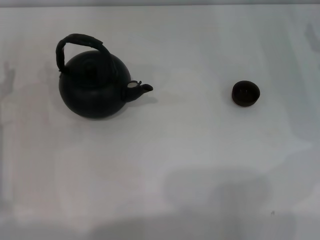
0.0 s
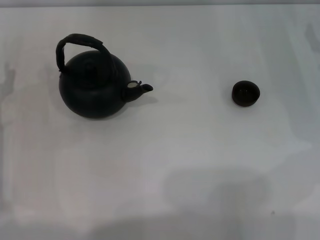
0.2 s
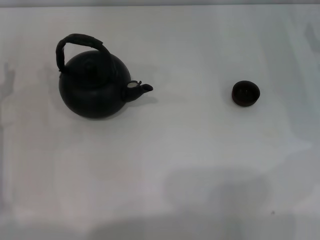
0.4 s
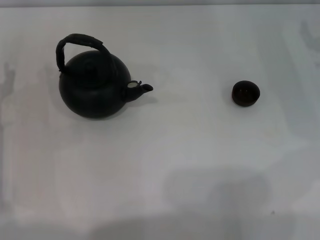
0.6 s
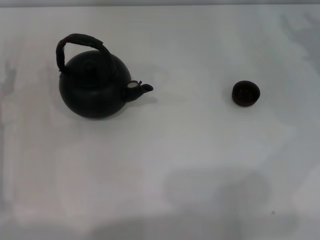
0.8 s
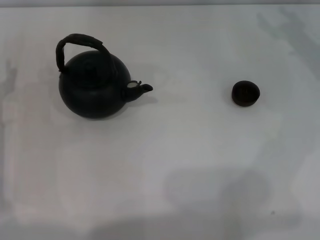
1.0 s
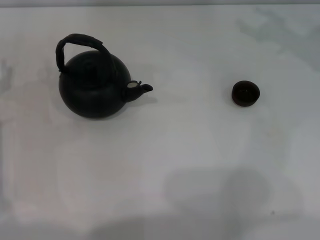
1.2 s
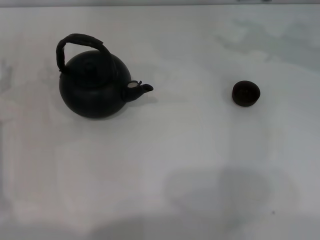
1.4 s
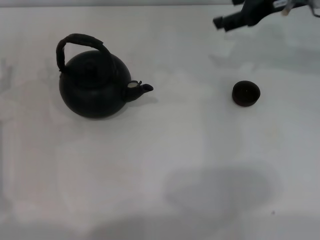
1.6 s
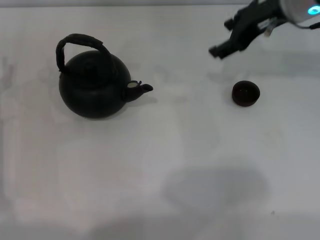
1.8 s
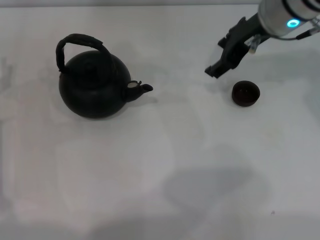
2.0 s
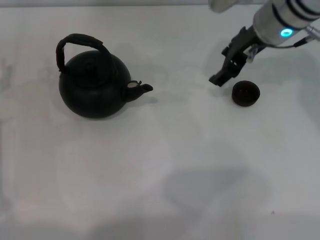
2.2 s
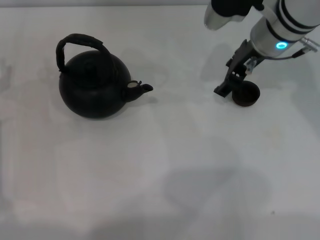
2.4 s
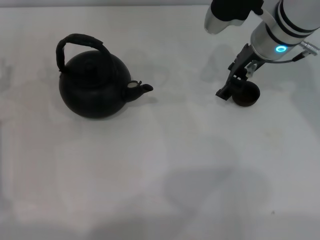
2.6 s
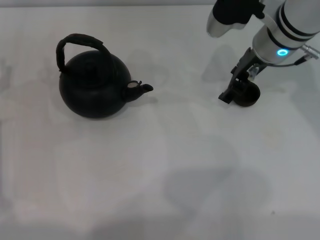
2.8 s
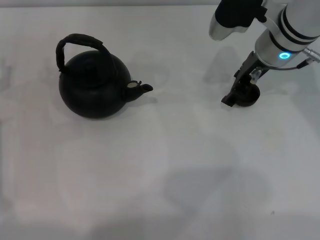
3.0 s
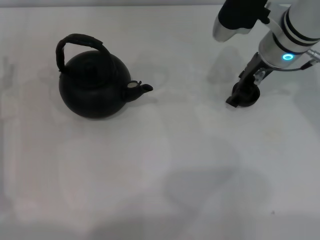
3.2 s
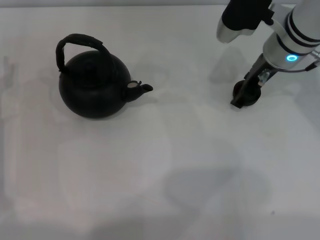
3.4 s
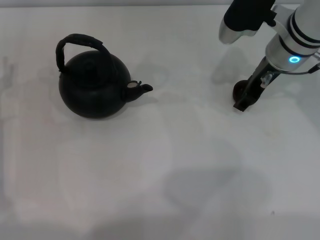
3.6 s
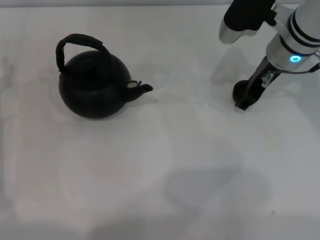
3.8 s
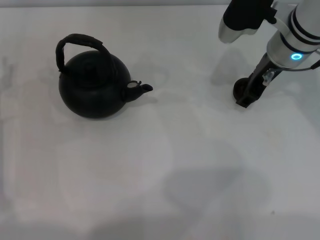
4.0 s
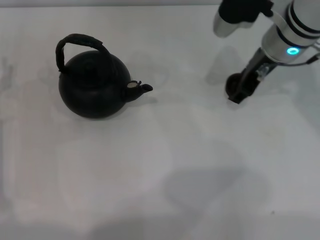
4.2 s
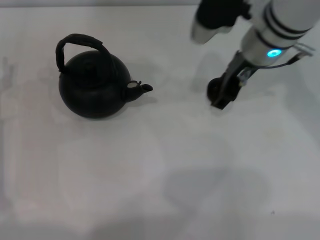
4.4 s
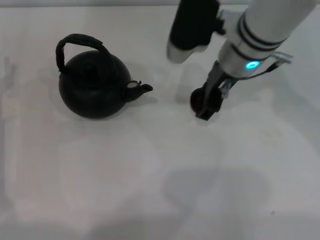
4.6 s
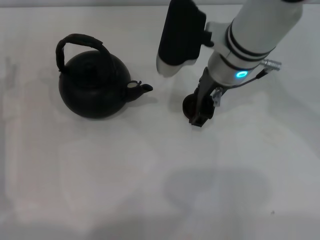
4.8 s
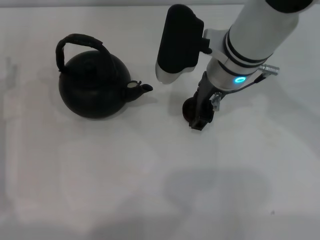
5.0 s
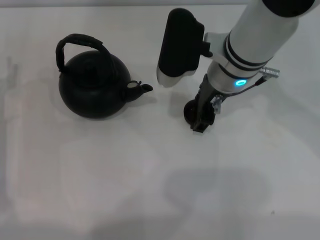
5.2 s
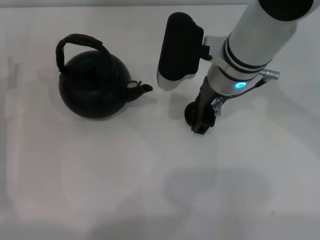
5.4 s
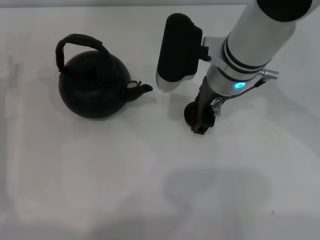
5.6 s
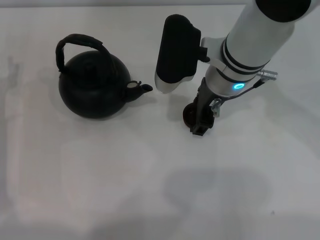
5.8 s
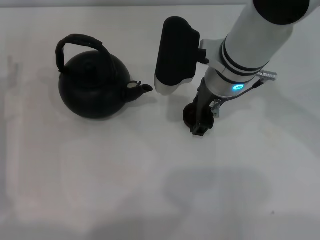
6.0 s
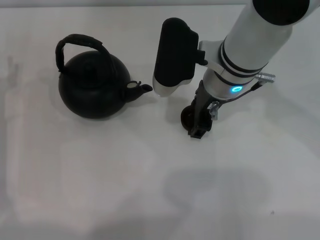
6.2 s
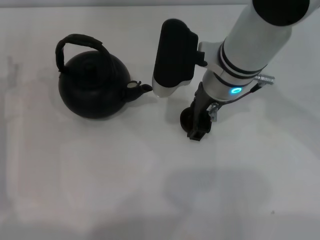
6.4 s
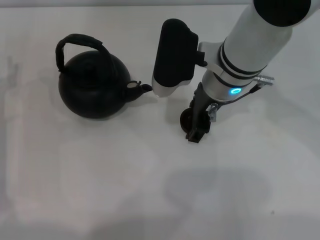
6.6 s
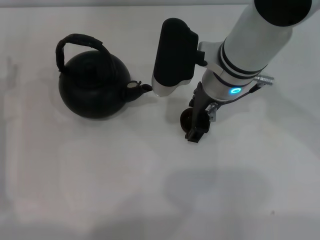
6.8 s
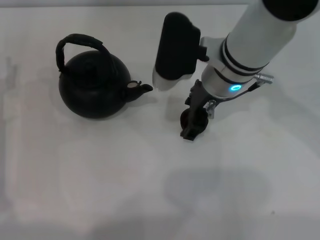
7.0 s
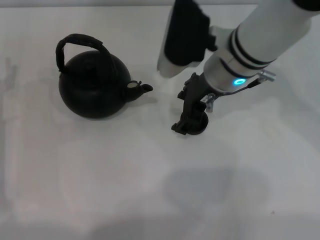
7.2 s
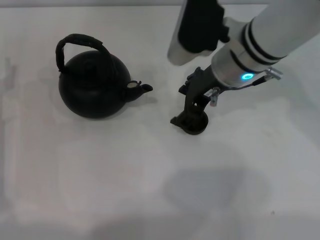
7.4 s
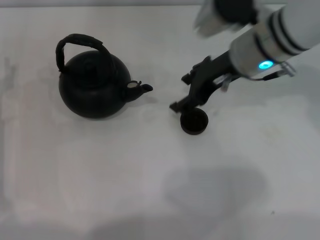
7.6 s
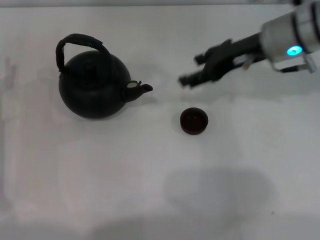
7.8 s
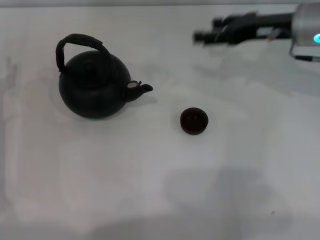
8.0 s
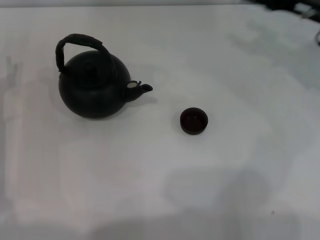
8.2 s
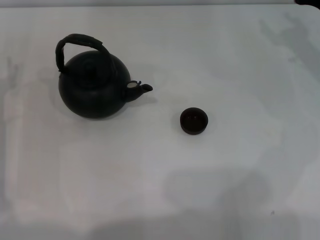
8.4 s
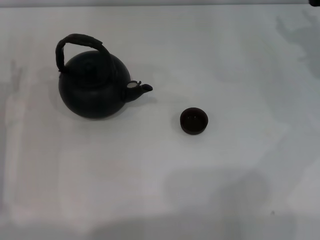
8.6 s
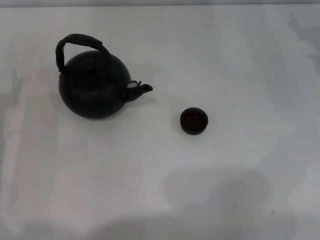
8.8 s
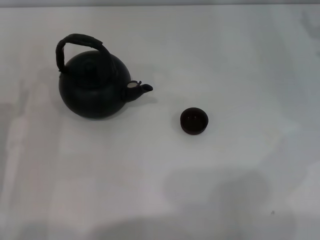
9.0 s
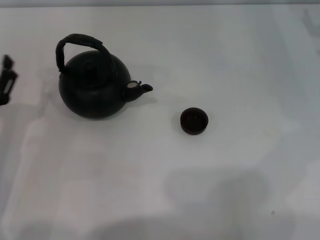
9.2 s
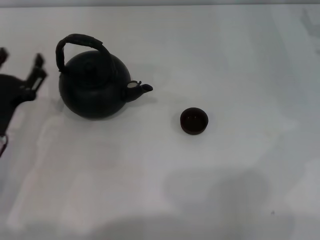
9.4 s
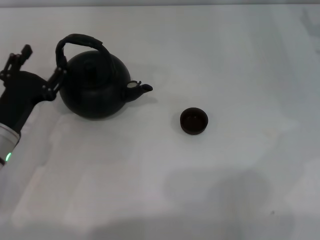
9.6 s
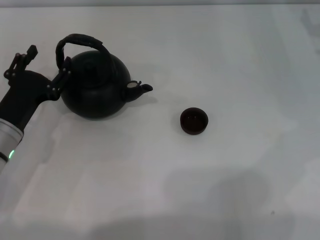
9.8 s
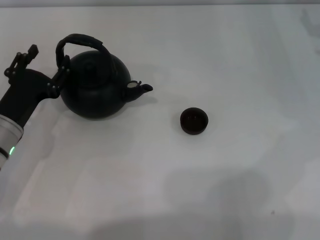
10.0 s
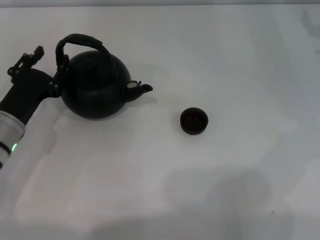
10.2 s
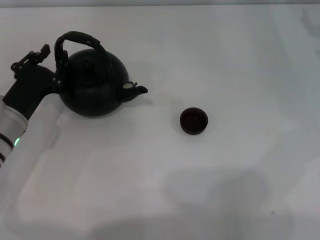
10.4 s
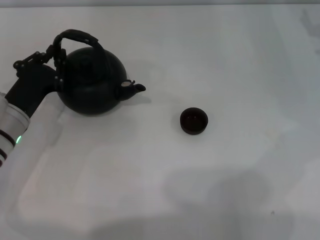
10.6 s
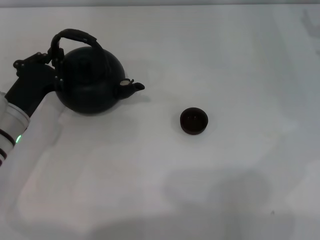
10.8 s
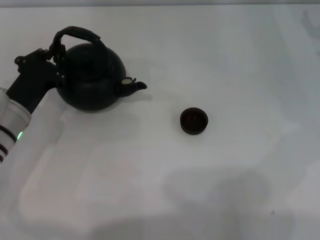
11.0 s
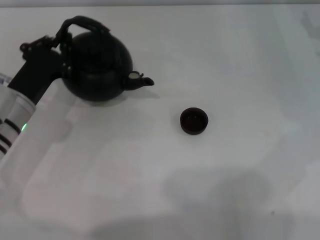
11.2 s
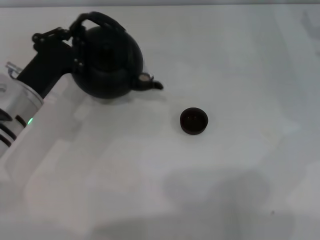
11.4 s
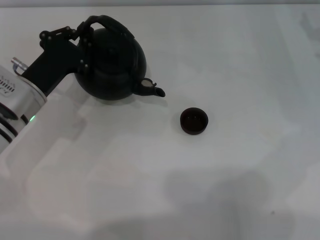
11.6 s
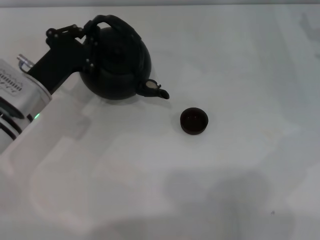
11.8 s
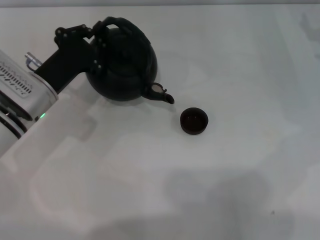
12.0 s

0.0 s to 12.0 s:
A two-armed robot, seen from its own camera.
Task of the whole recording: Grasp the handle of the teapot with one hand and pour tea into the teacup.
Step, 0.0 to 4.0 s: Pick up the teacup with the right gripper.
Step, 4.4 to 7.6 s: Place the teacup in the center of view with the right gripper.
Step, 8.0 to 11.2 s: Pick up the teapot with the left gripper.
0.0 to 1.6 s: The right gripper travels upward, to the left and forward by approximately 20 cm.
1.6 to 3.0 s: The right gripper heads downward and to the left, covering roughly 10 cm.
3.0 to 4.4 s: The right gripper closes.
4.4 to 6.0 s: The right gripper shifts by about 5 cm.
6.0 to 7.6 s: The right gripper heads to the right, covering some 5 cm, and opens its fingers.
7.6 to 9.0 s: The left gripper heads backward, covering some 5 cm, while the right gripper heads to the right, covering approximately 20 cm.
9.0 to 10.4 s: The left gripper travels forward and to the right by approximately 10 cm.
10.4 to 12.0 s: The left gripper moves approximately 5 cm, and closes up.

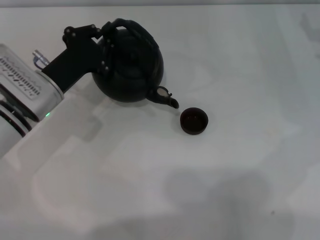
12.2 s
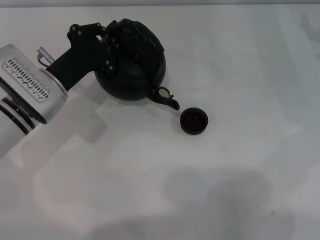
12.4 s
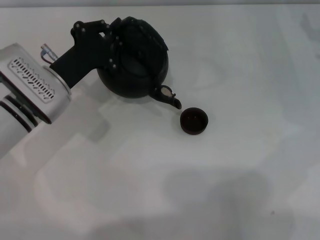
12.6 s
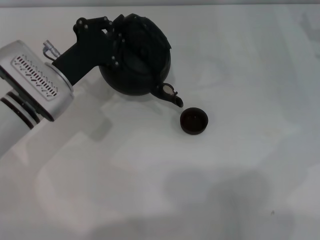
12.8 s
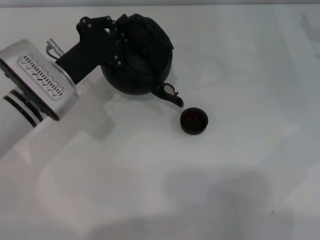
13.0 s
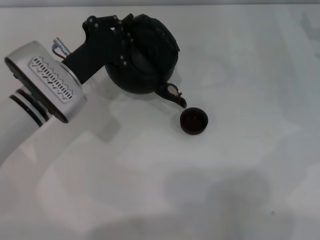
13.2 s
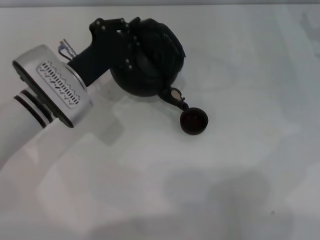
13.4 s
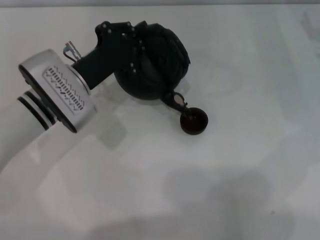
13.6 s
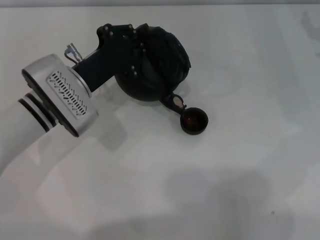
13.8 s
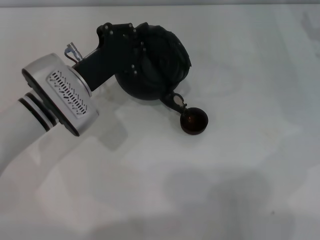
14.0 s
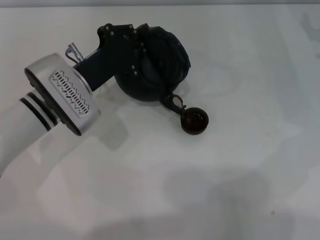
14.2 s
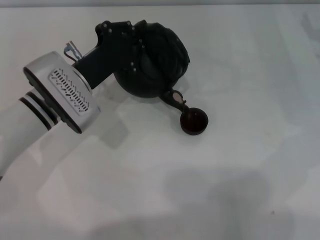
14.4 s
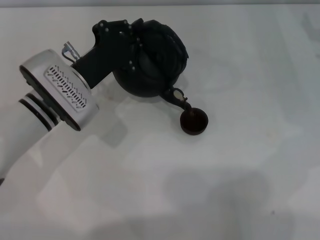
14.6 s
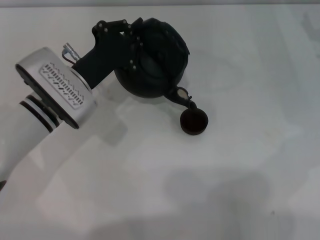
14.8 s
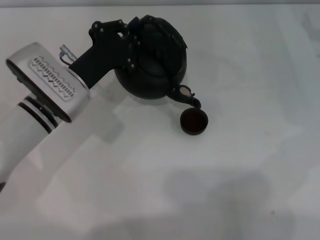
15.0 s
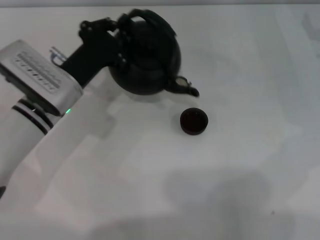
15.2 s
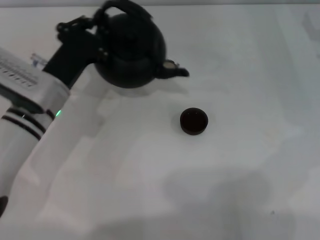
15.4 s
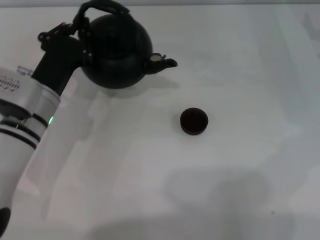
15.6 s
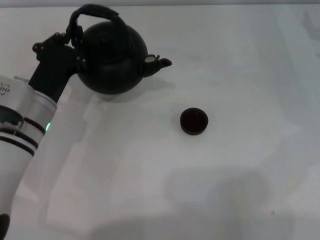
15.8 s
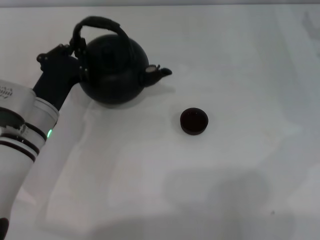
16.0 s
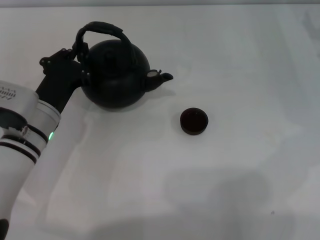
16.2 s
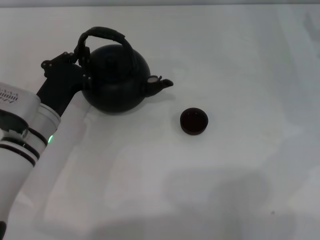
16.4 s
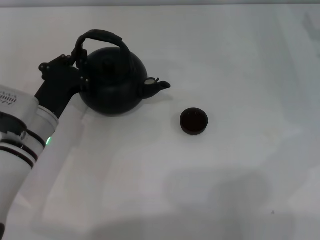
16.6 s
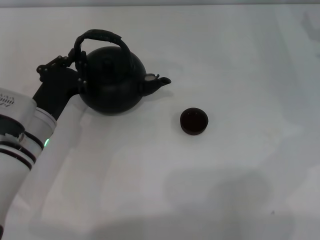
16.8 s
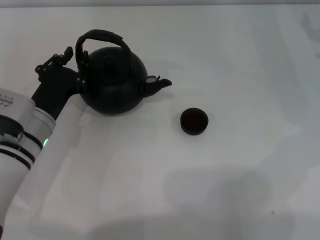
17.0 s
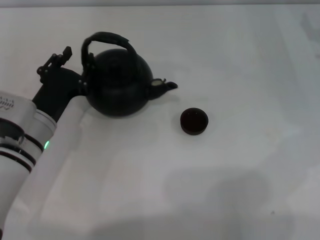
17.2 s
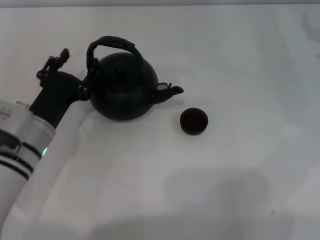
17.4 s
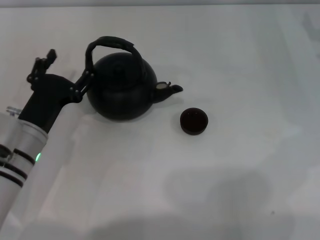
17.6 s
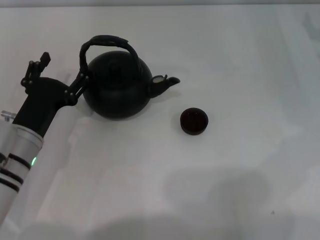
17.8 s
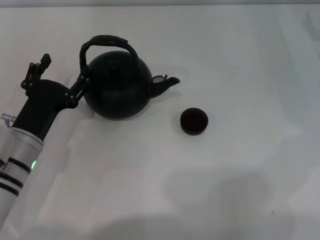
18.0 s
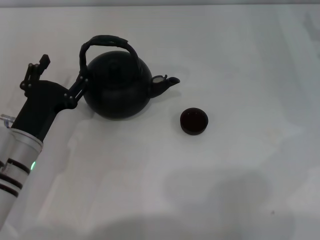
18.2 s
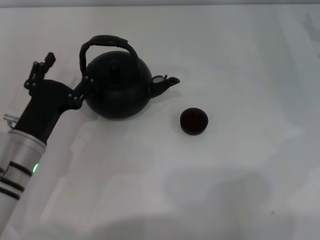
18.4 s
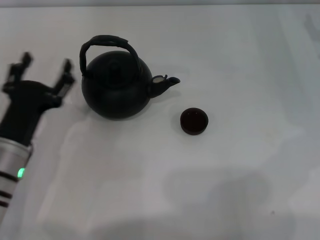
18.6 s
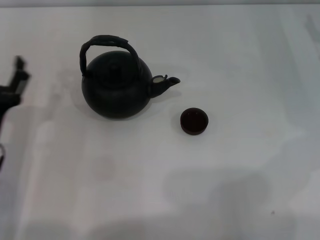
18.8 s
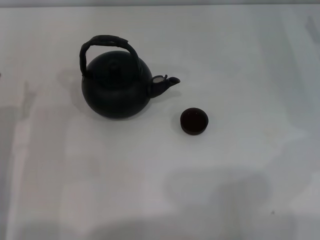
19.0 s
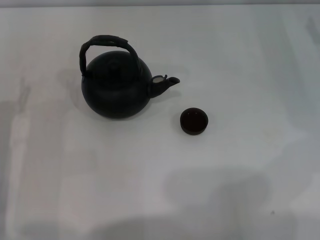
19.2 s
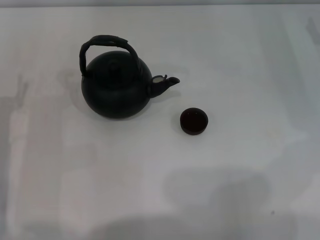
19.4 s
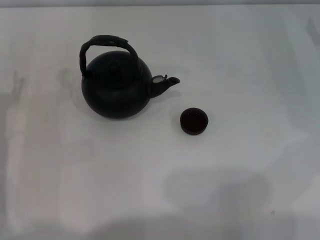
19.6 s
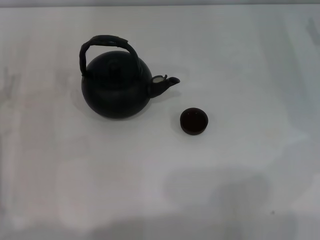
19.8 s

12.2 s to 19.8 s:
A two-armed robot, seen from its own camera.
Task of the whole recording: Grasp the handle of the teapot with one hand and pour tea into the teacup.
Step, 12.2 to 15.4 s: Pour tea into the teacup with the left gripper.
Step, 15.8 to 18.2 s: Put down the teapot with the left gripper.
12.2 to 13.8 s: The grippers stay close to where they were, moving slightly.
15.2 to 16.8 s: The left gripper changes place by some 5 cm.
16.8 to 18.2 s: The left gripper opens.
18.2 to 19.8 s: The left gripper moves to the left, roughly 10 cm.

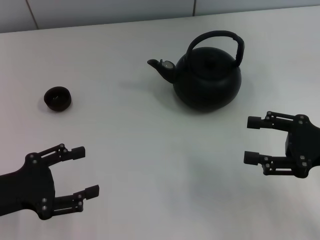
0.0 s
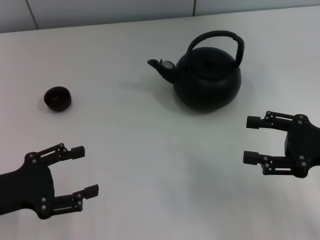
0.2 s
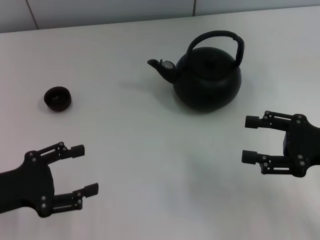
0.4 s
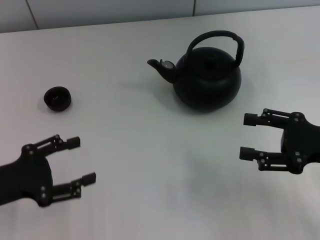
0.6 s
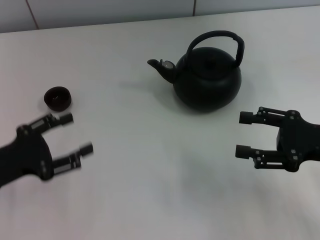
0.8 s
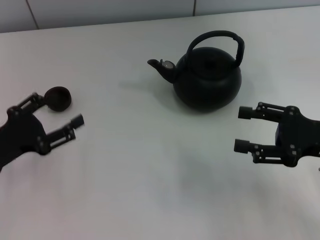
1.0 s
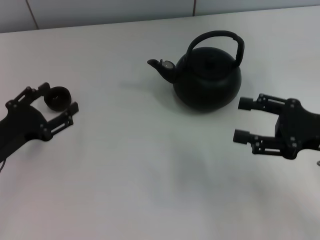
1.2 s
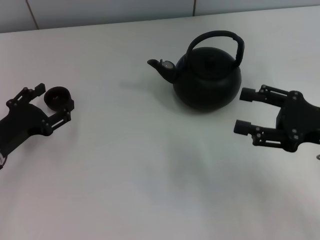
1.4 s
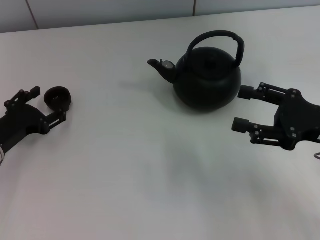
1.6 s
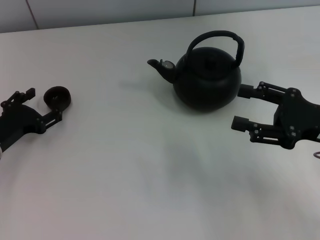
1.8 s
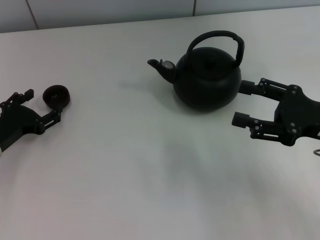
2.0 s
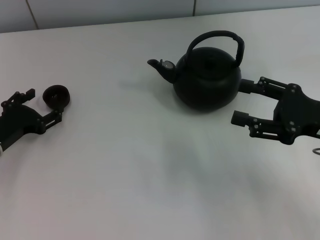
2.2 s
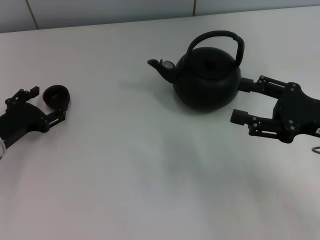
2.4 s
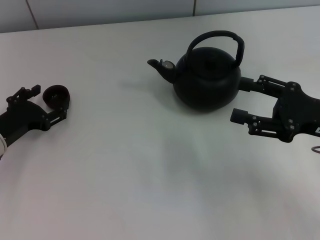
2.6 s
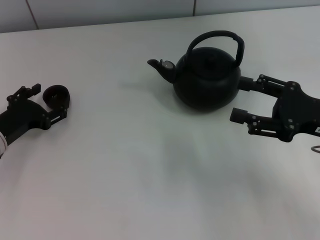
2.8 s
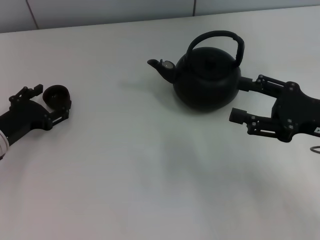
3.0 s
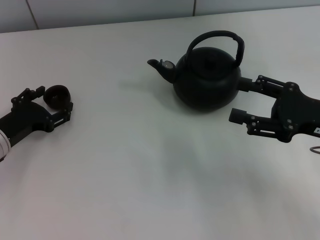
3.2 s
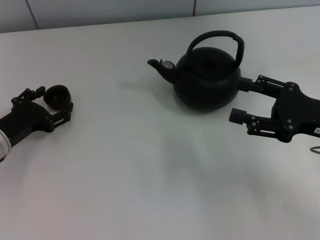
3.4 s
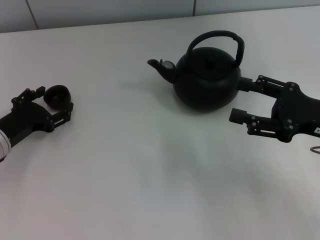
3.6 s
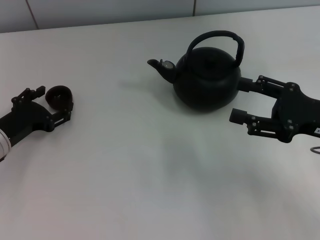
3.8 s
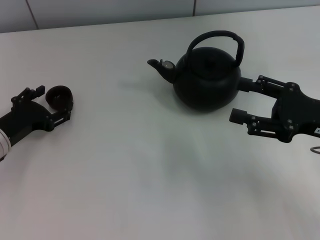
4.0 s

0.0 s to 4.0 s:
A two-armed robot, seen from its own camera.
Task of the whole recording: Grasp the handle of the teapot with one hand and pour tea into the teacup.
0.0 to 1.4 s: The left gripper moves forward, roughly 5 cm.
1.4 to 2.6 s: There are only small adjustments of the grippers.
2.6 to 4.0 s: The two grippers keep their place.
